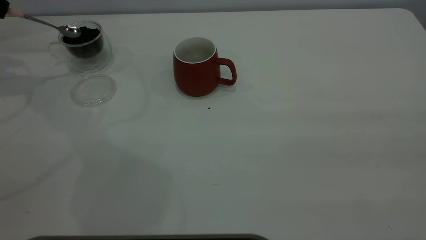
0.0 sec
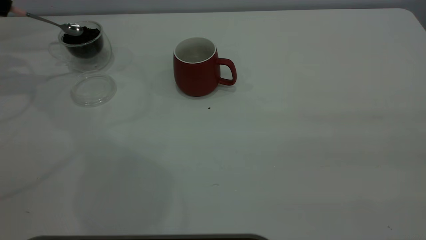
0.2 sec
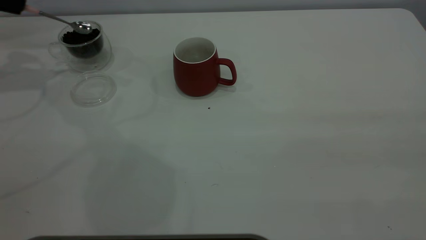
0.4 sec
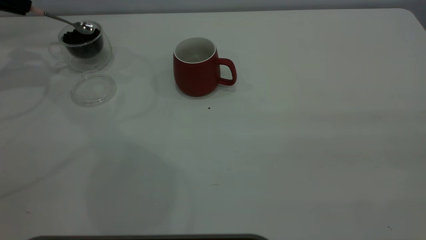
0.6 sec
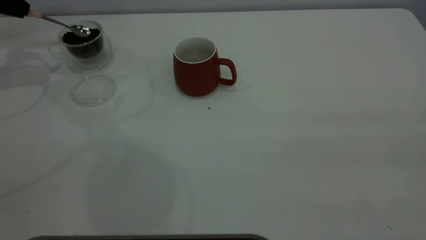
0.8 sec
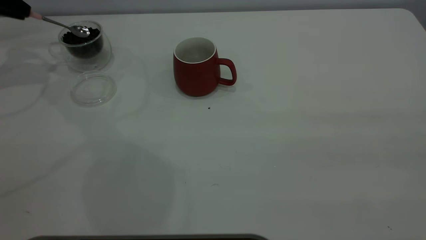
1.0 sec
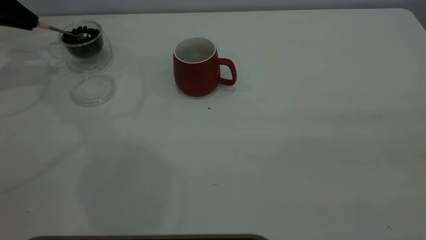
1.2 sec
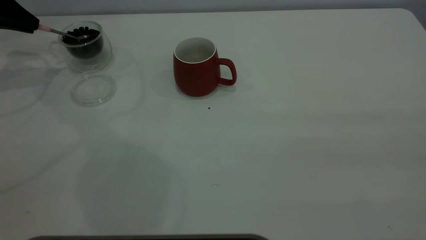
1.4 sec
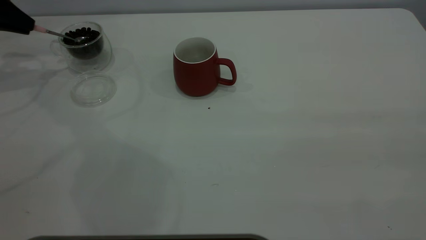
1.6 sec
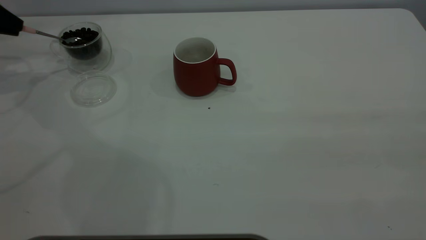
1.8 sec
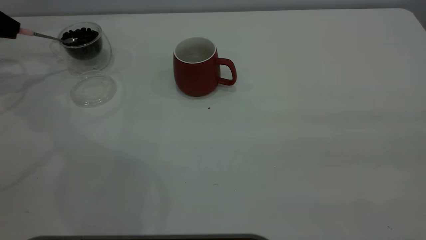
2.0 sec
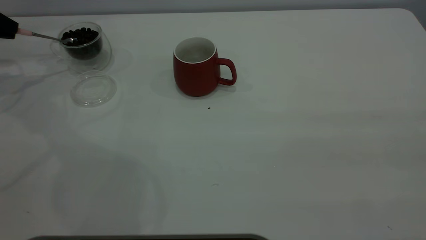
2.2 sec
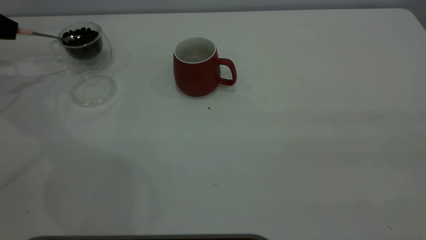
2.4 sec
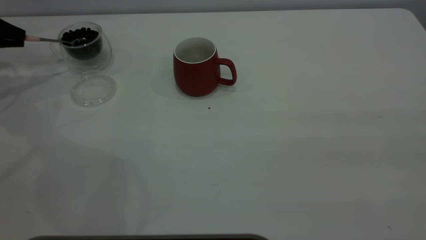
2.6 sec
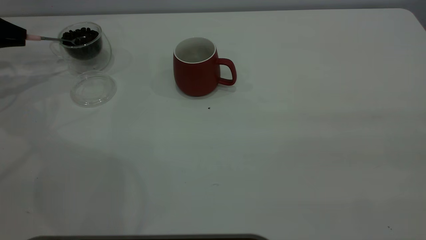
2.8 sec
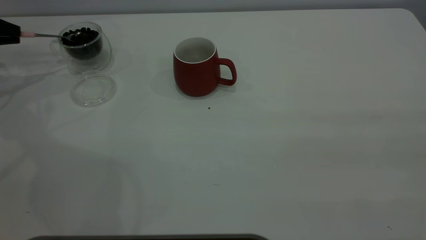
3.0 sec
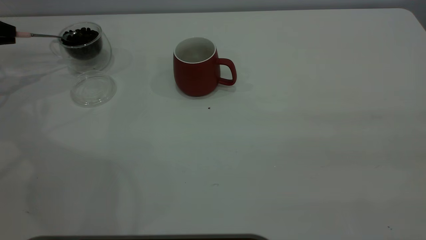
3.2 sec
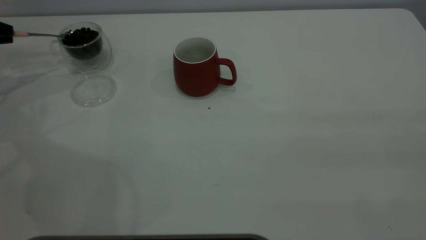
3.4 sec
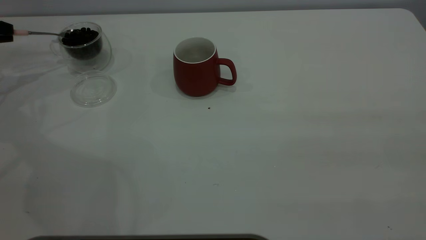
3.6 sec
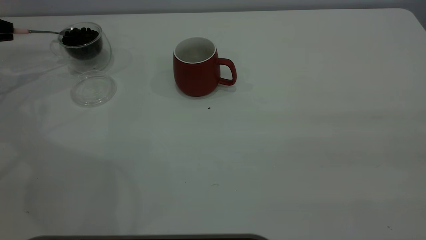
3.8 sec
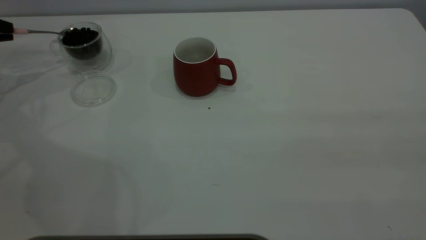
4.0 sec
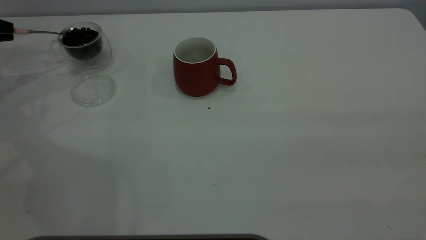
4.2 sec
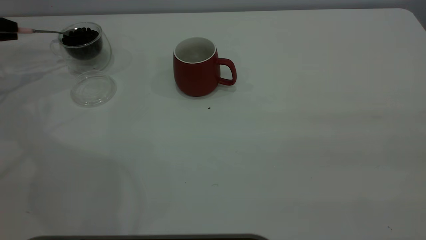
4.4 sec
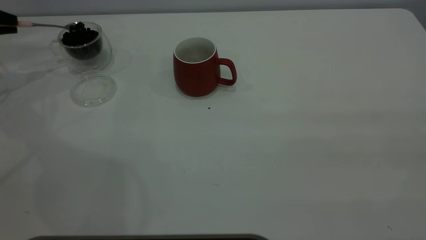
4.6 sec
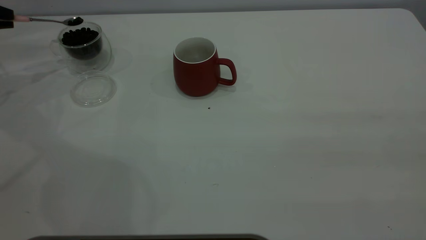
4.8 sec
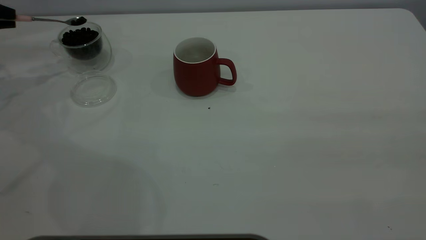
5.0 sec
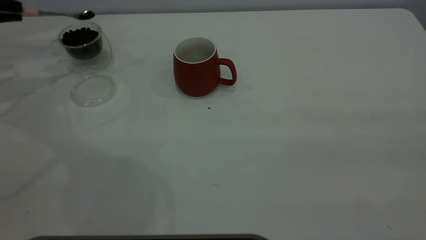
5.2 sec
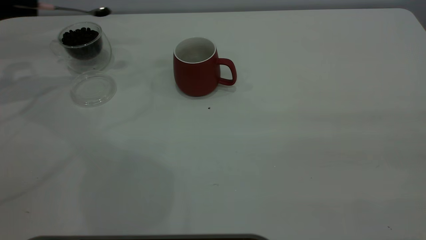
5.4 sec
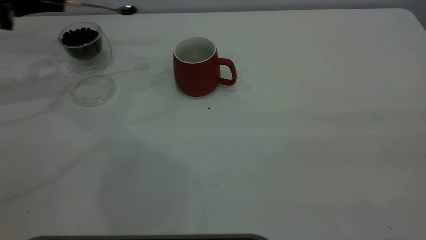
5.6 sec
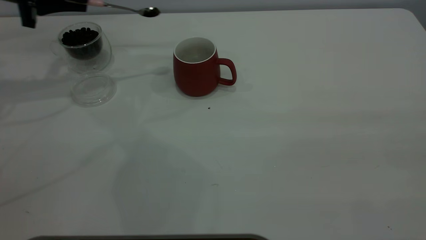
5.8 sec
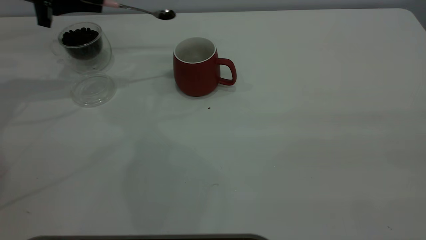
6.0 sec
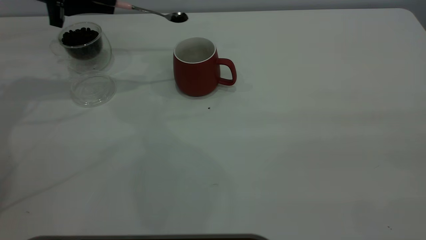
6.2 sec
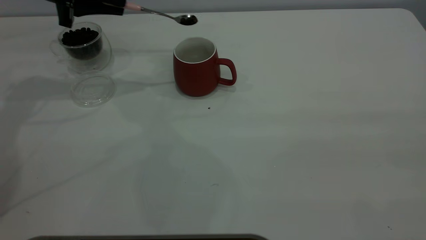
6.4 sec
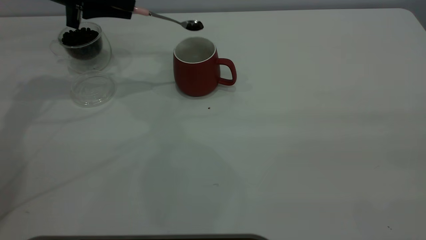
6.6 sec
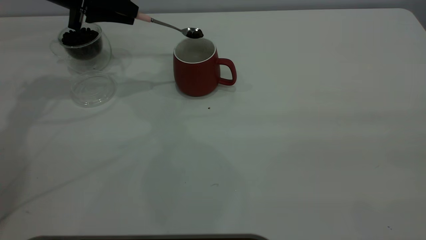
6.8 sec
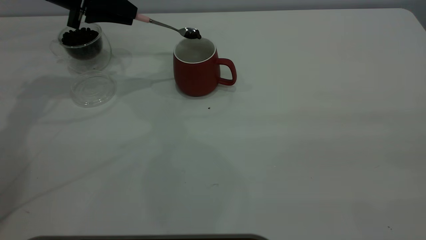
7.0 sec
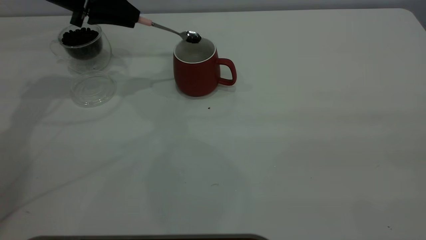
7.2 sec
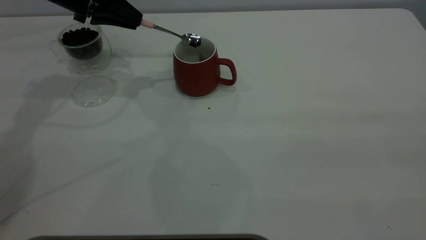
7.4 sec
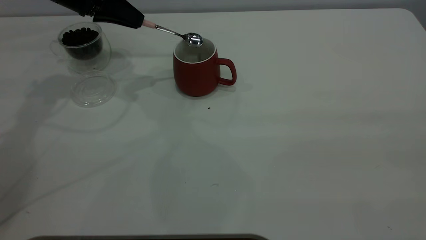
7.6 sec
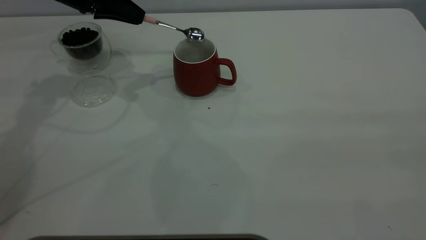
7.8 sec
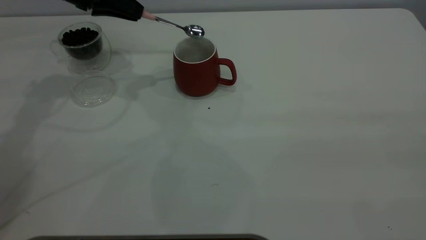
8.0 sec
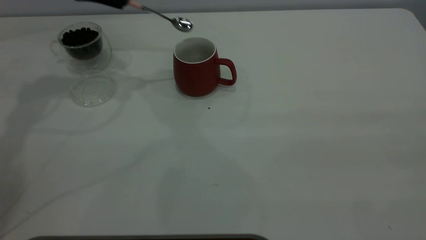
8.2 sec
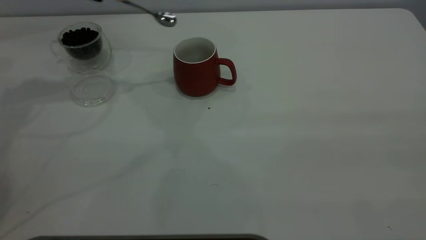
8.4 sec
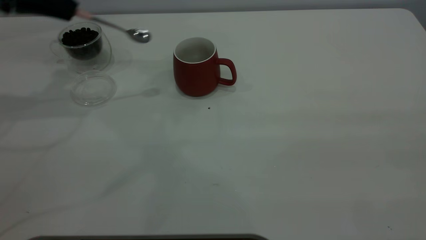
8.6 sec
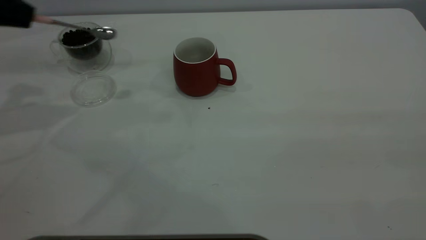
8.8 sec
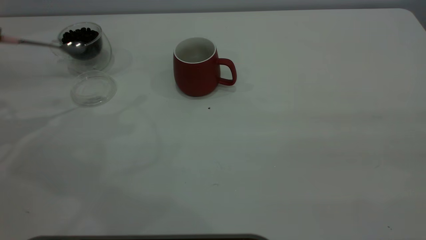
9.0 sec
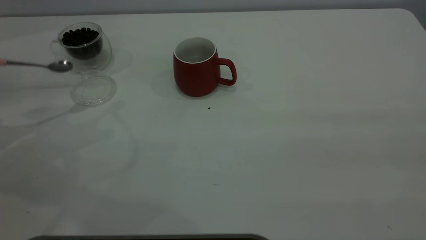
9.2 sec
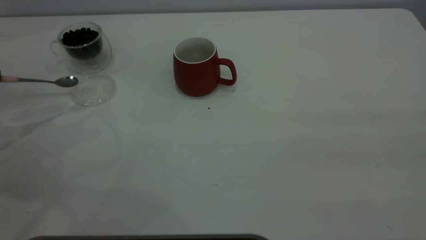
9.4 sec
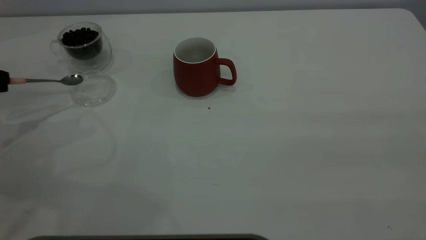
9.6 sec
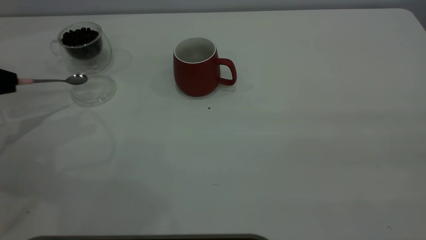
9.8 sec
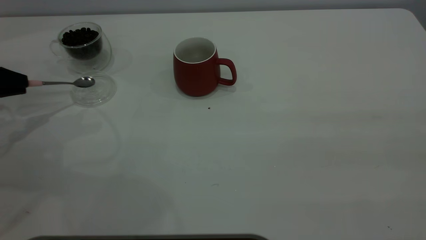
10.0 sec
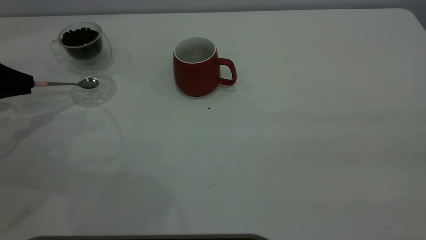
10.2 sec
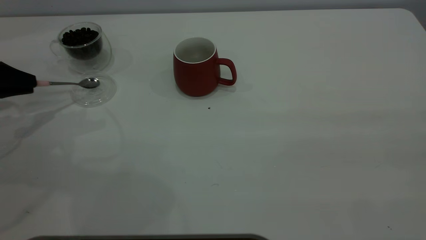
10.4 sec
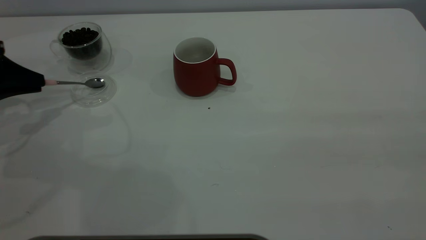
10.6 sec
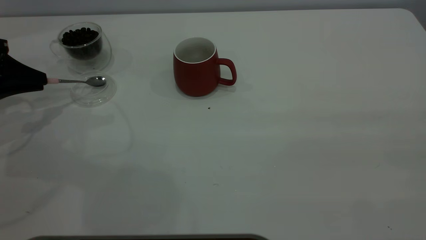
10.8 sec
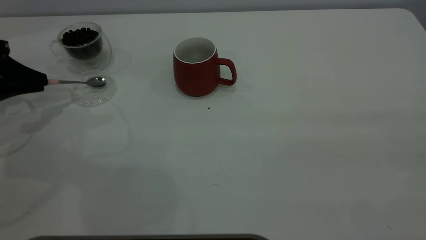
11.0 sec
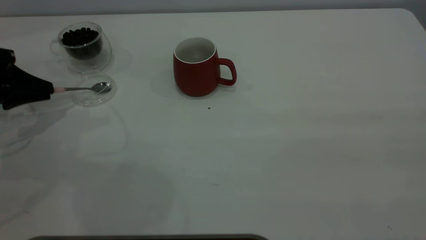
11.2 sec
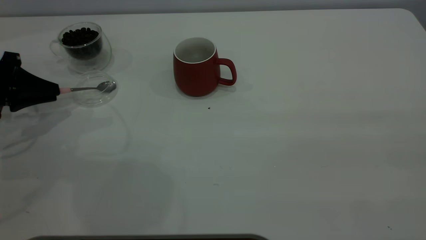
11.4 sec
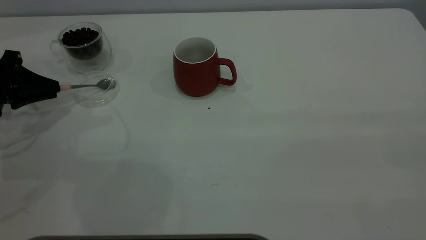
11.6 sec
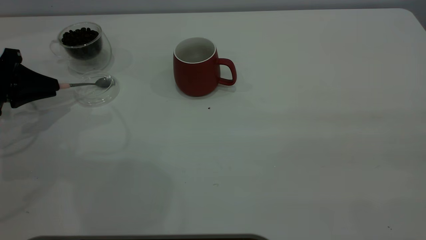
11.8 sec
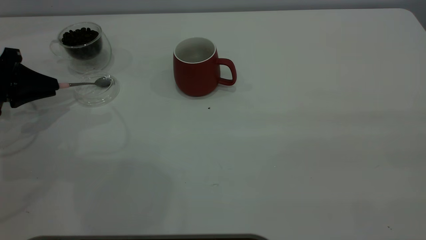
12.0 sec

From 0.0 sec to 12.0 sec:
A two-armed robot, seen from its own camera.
Task of the whole recording: the right gripper place the red cup in the center of the table, the left gripper take the pink spoon from the cup lid and scoop out the coffee beans from the coffee cup and put them into the red cup, the left gripper put the spoon back into the cup lid.
Step, from 0.2 sec to 8.2 sec: Scoop a spoonful of beans into the cup.
From 0.0 sec to 1.6 sec: There are only small adjustments of the grippers.
From 1.6 sec to 3.0 sec: The left gripper ends up approximately 5 cm from where it was.
From 4.4 sec to 6.0 sec: The left gripper goes about 20 cm to the right.
From 6.0 sec to 7.6 sec: The left gripper shifts some 5 cm to the right.
From 7.6 sec to 9.0 sec: The left gripper goes about 25 cm to the left and backward.
From 9.0 sec to 10.4 sec: The left gripper moves downward, some 10 cm.
From 10.4 sec to 12.0 sec: There are only small adjustments of the grippers.

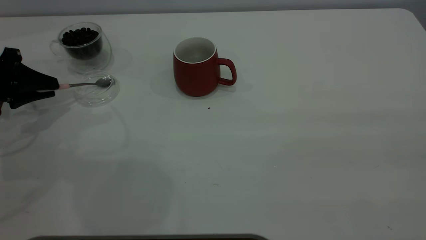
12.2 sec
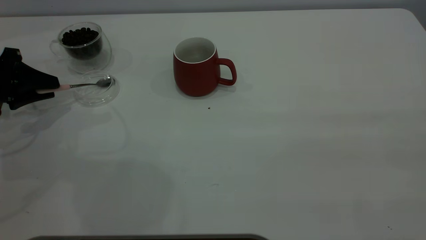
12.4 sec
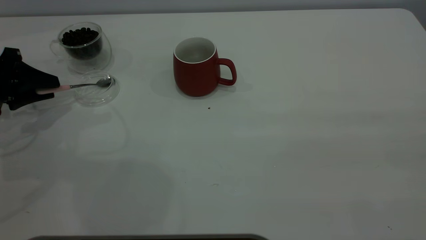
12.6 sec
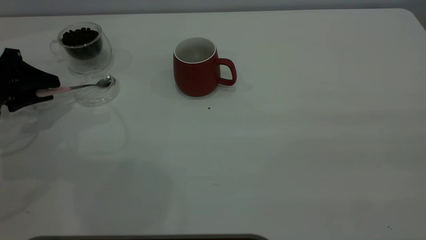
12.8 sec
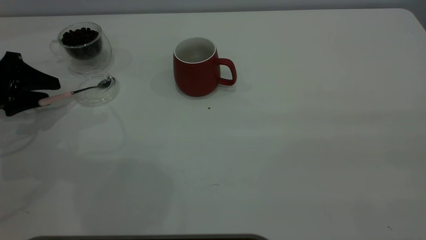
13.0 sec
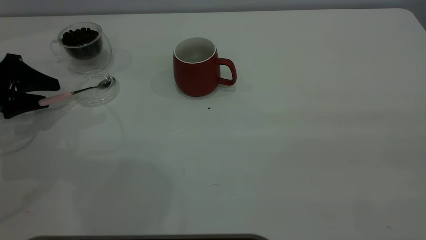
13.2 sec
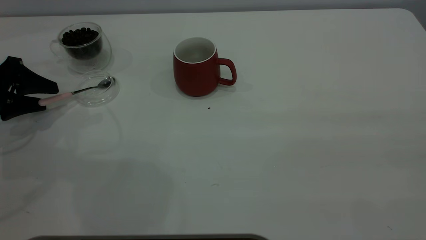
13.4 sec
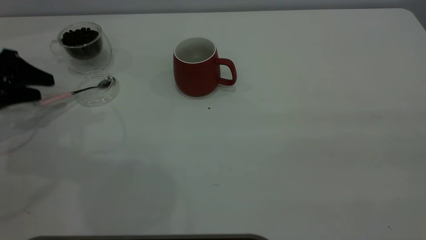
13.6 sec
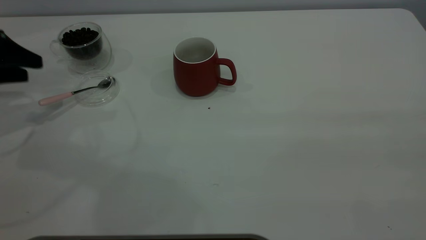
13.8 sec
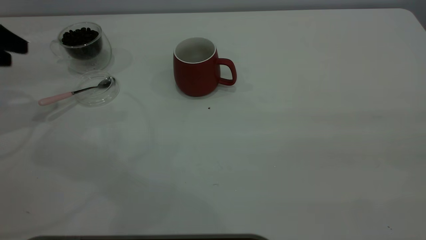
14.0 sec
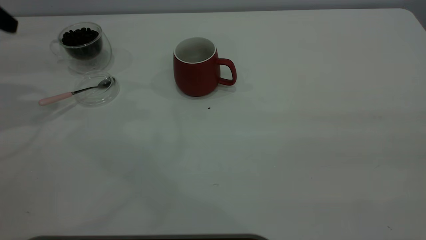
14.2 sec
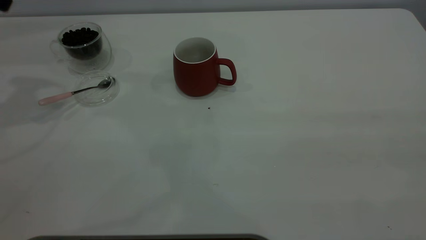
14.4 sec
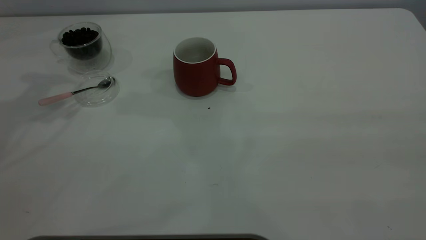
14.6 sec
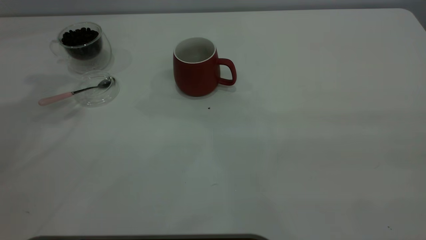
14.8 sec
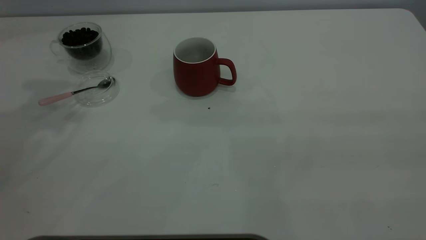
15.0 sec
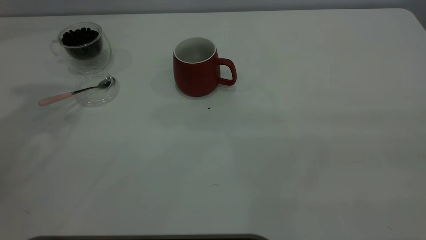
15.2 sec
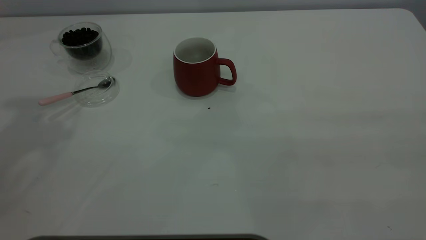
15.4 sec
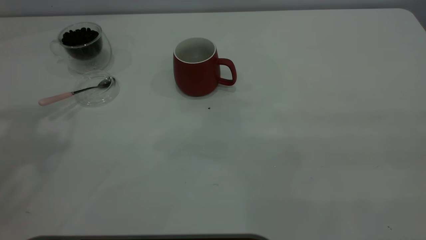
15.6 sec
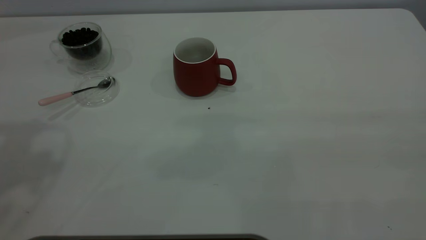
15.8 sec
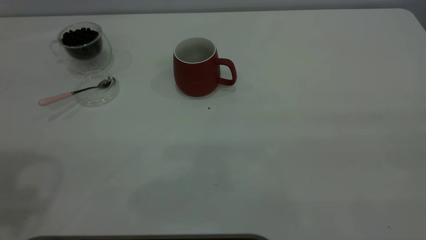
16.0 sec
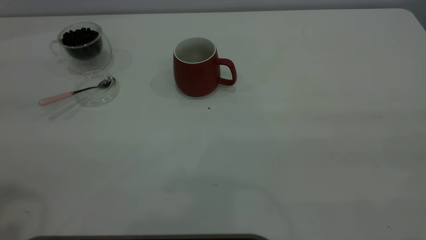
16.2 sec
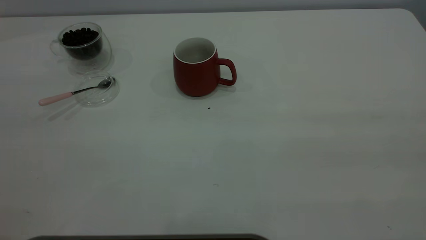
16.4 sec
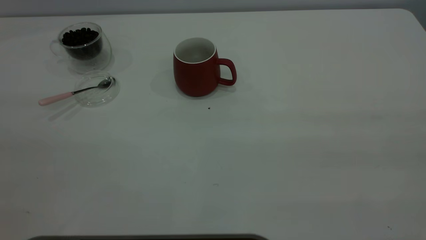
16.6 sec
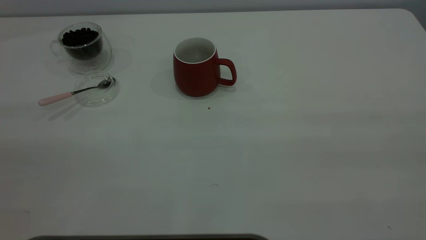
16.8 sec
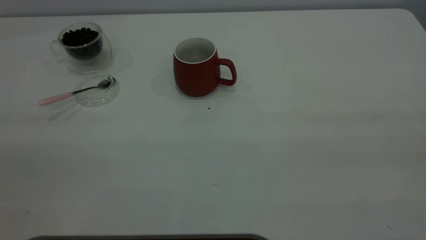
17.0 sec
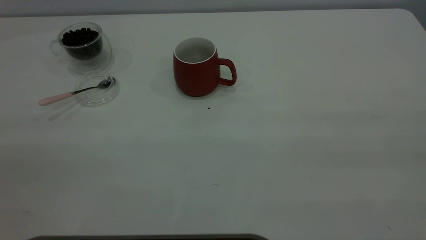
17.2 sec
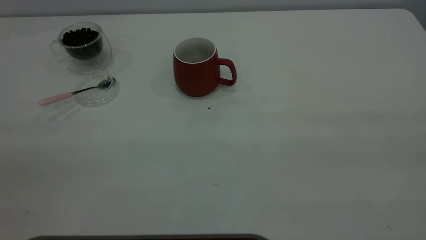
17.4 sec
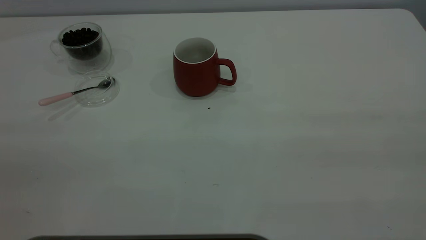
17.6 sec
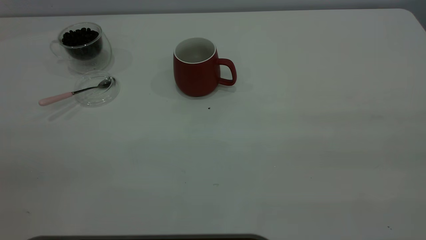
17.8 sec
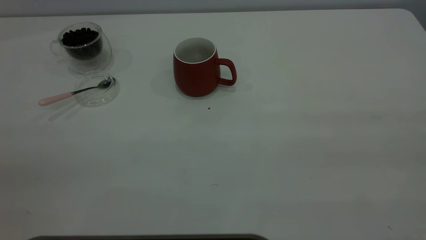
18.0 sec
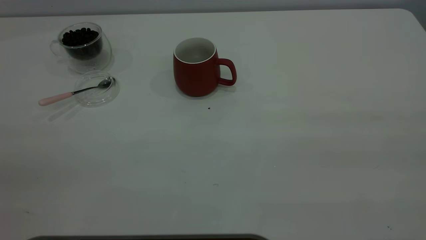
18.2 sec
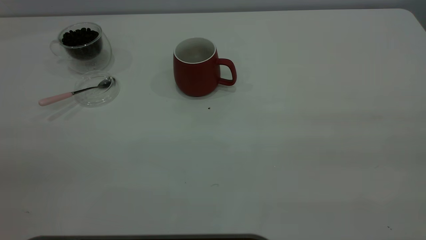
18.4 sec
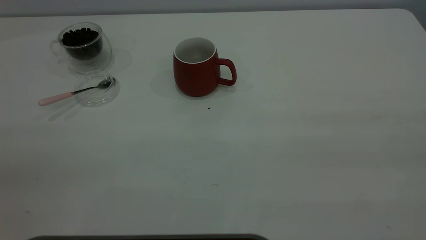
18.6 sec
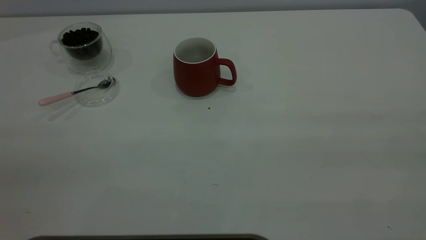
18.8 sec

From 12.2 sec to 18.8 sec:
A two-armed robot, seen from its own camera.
Task of the whole recording: the right gripper place the red cup in the center of the table, the left gripper take the pink spoon from the cup lid and scoop out the coffee beans from the coffee cup and put them into the red cup, the left gripper put the spoon back into the cup lid.
From 12.2 sec to 13.8 sec: The left gripper goes some 5 cm upward, and opens its fingers.
From 13.8 sec to 15.4 sec: The left gripper moves upward, roughly 30 cm.
From 17.2 sec to 18.8 sec: The two grippers keep their place.
